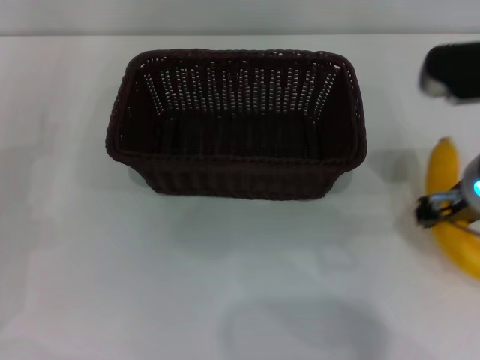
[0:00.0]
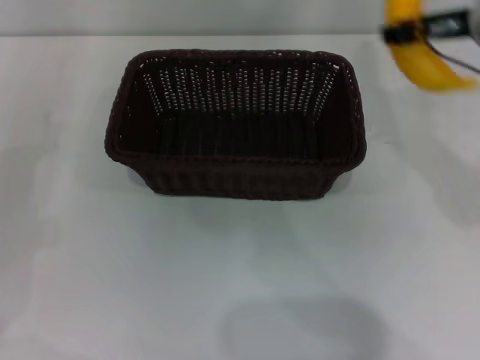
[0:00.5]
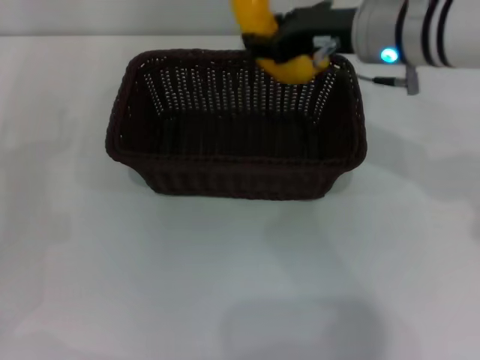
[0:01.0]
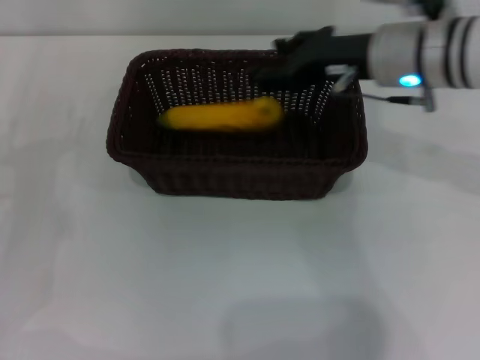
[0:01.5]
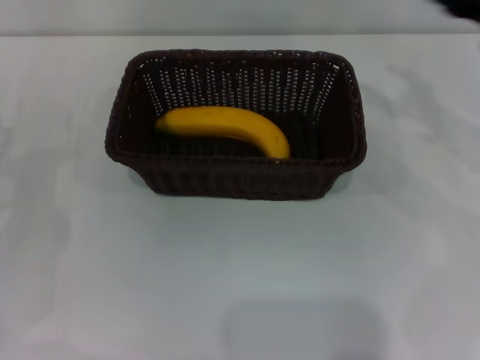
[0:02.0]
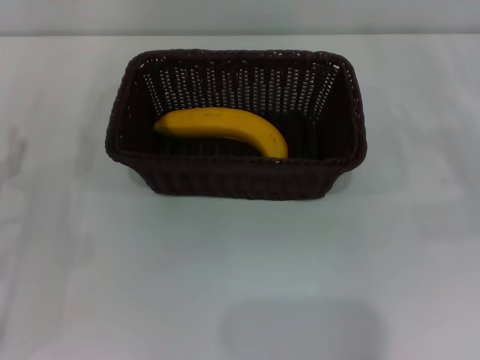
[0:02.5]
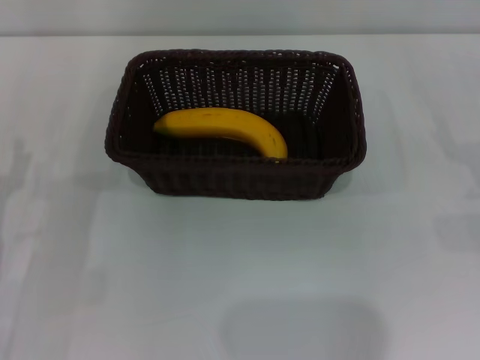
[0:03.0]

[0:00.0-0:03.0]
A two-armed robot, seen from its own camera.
Step, 0:00.5 to 0:01.5: Place the banana into the dark basket with the right gripper.
0:00.0 to 0:01.5: The right gripper goes roughly 10 cm forward.
0:01.5 to 0:03.0: The right gripper is displaced to the right, downward and backward by approximately 30 cm, and opens. The left gripper shifts some 5 cm backward.

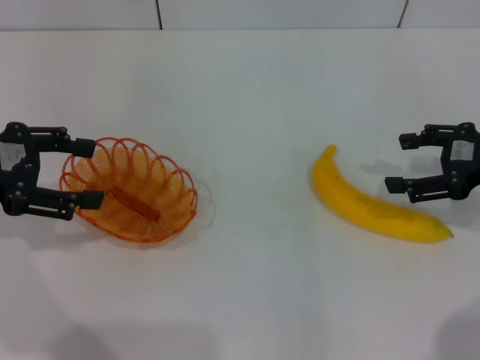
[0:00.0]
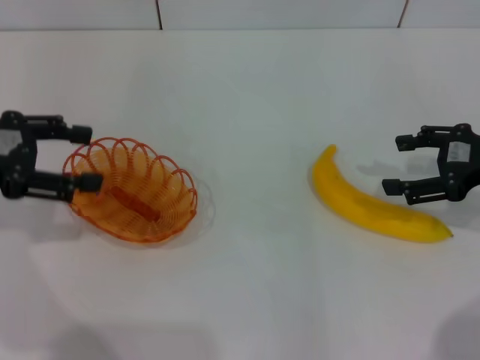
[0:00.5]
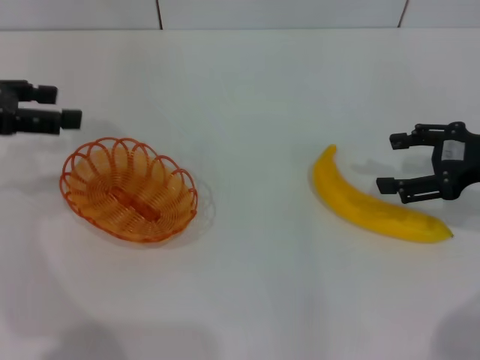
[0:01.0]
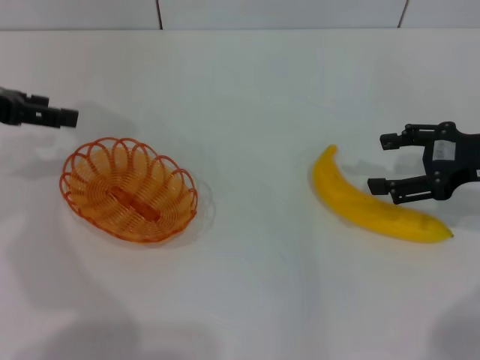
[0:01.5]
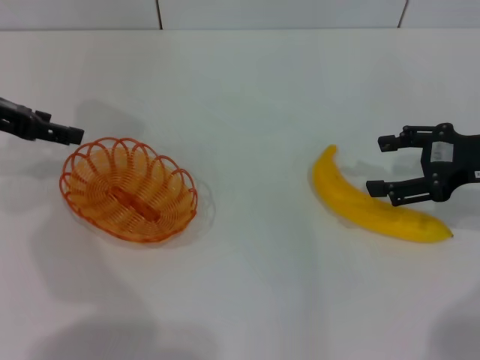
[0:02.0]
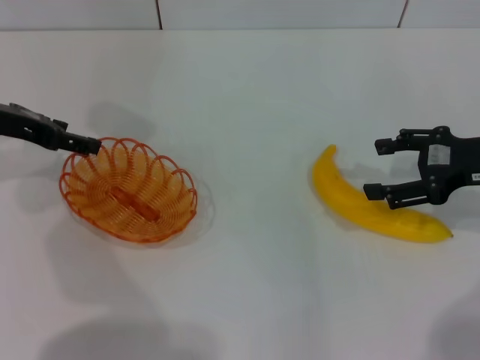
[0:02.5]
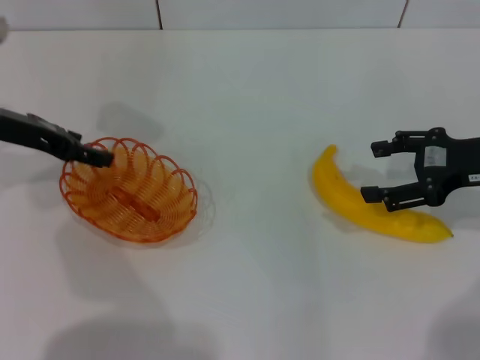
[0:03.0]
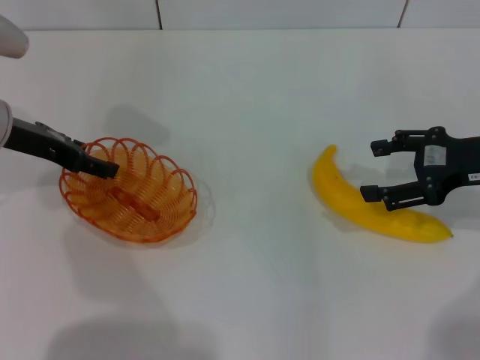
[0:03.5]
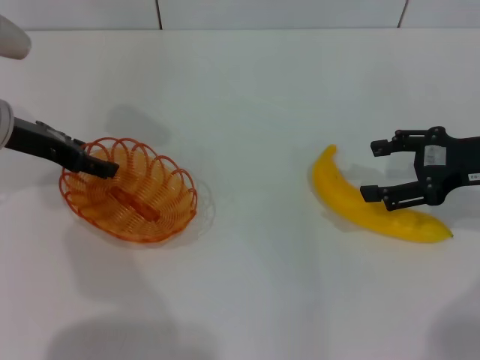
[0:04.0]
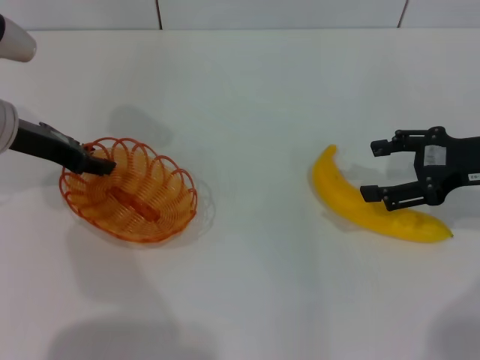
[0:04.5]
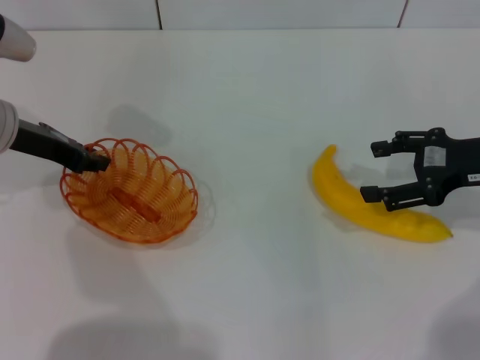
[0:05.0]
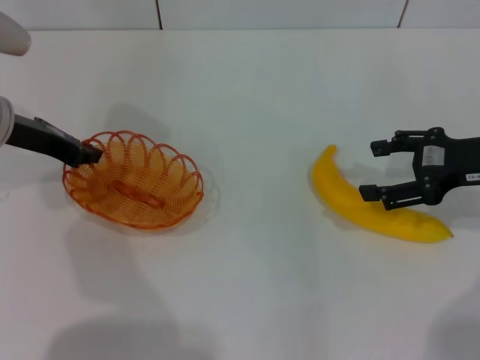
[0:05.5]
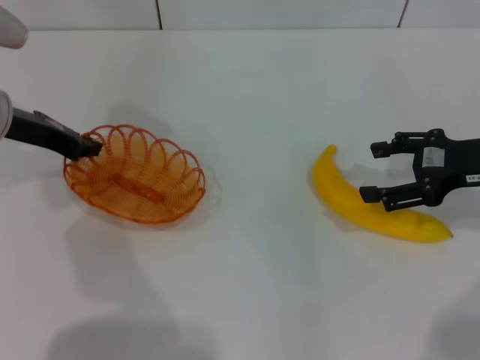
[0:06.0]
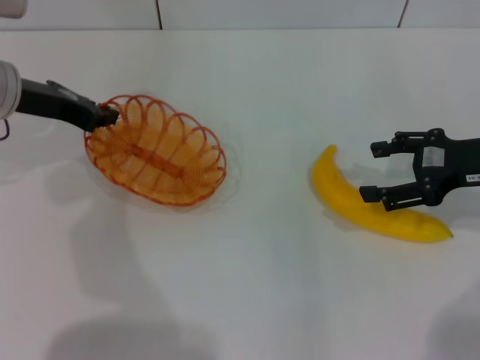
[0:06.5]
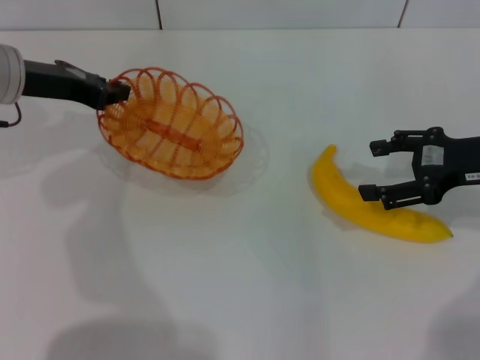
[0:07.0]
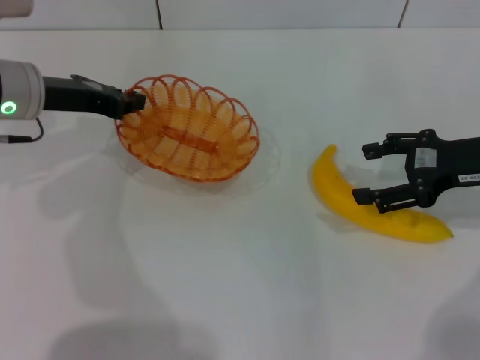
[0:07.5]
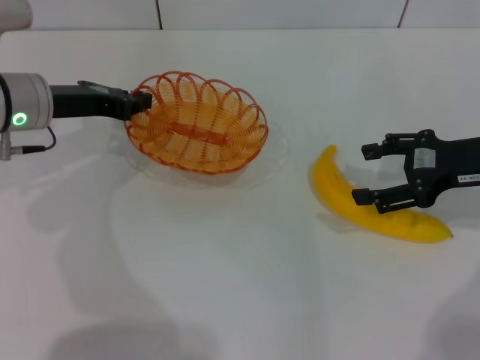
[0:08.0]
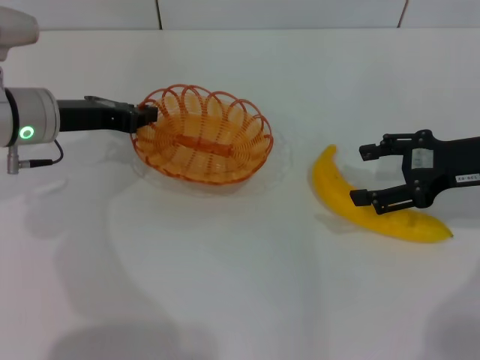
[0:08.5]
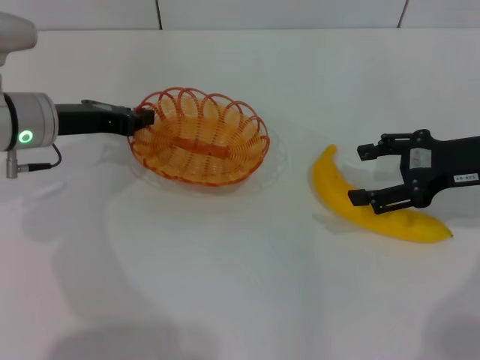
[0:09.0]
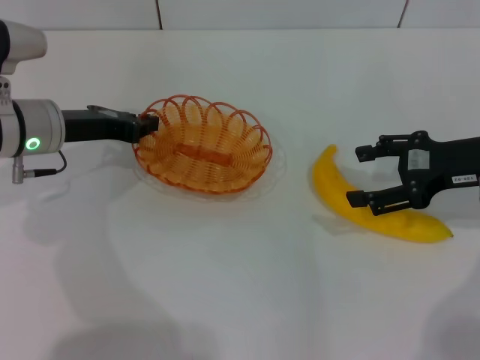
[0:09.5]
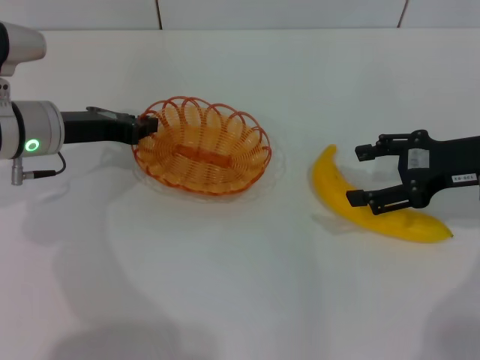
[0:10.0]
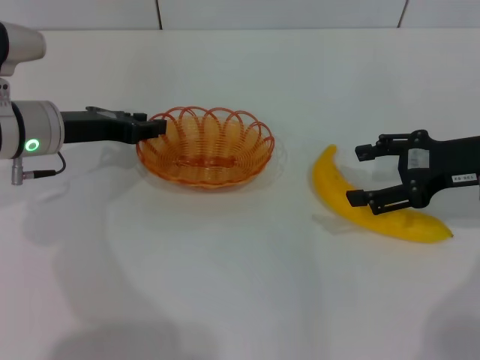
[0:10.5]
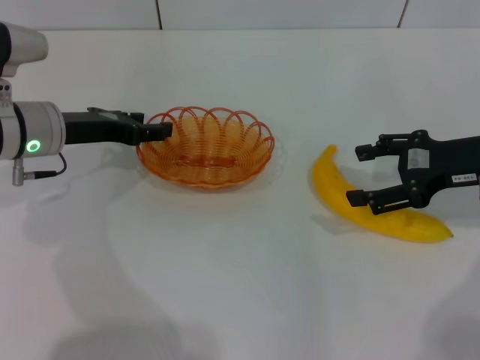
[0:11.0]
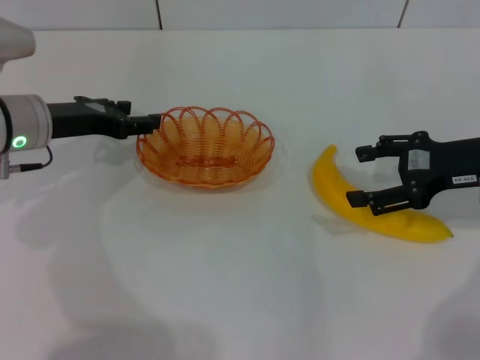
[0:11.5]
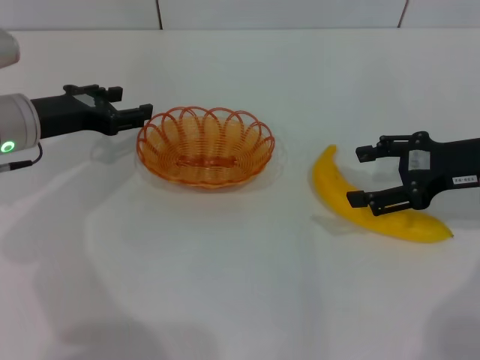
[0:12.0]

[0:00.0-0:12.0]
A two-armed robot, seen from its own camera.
Step, 0:00.0 to 0:06.0: Pick up the basket with the left gripper.
Step, 0:06.5 to 0:10.5: Place the basket in the center of view with the left gripper.
0:00.0 to 0:02.0: The left gripper shifts about 5 cm forward.
0:02.0 to 0:04.0: The left gripper shifts by about 5 cm.
0:04.0 to 0:06.0: The left gripper closes its fingers.
0:08.0 to 0:10.0: There are only small adjustments of the grippers.
0:10.0 to 0:12.0: The left gripper opens.

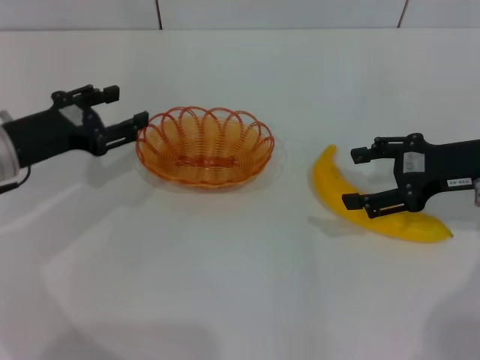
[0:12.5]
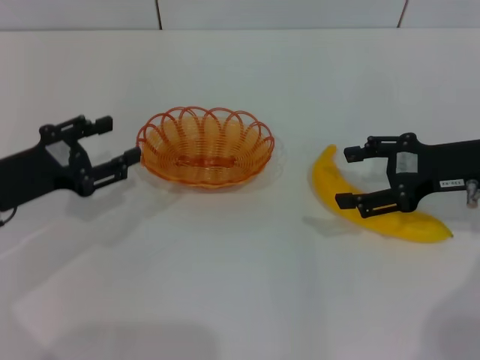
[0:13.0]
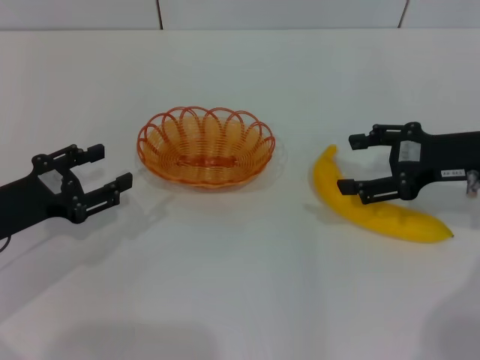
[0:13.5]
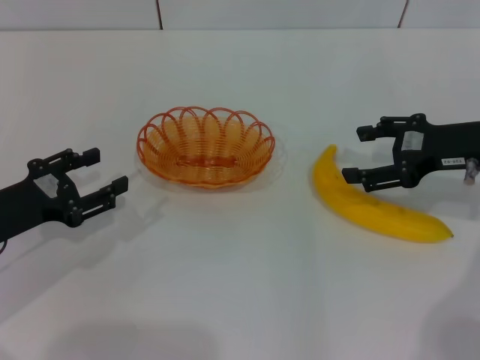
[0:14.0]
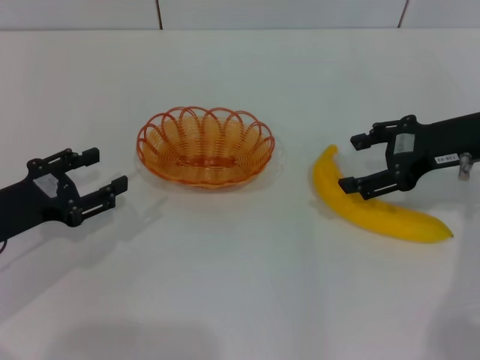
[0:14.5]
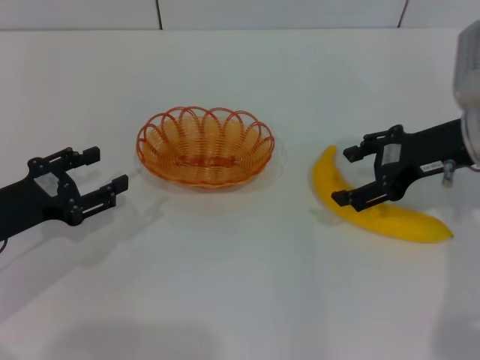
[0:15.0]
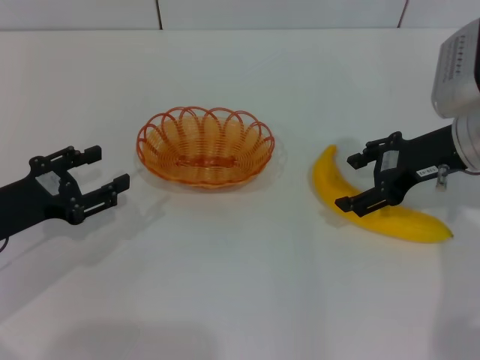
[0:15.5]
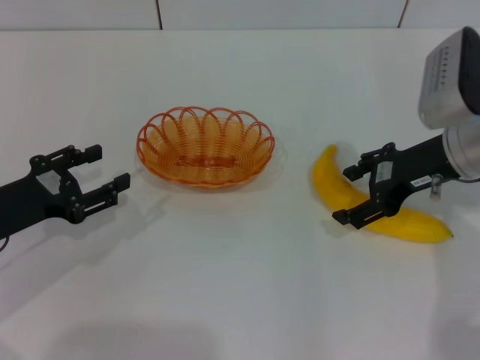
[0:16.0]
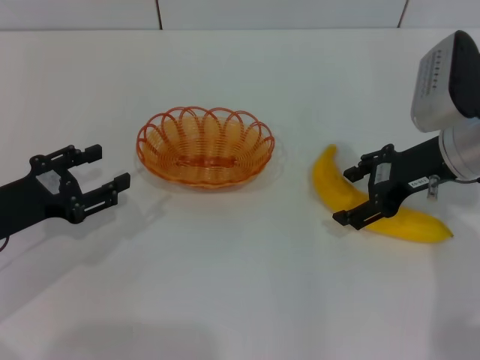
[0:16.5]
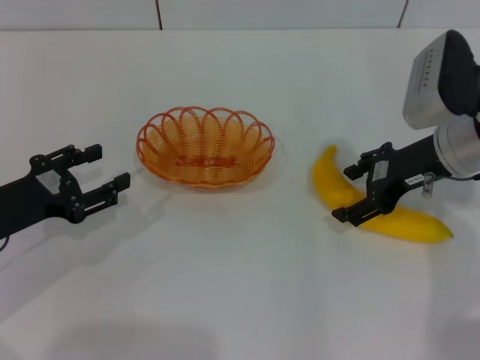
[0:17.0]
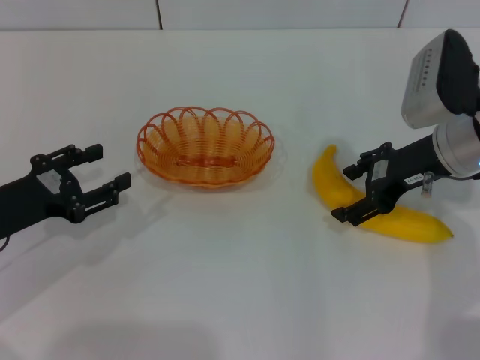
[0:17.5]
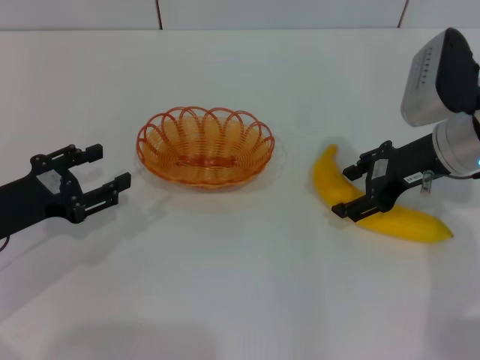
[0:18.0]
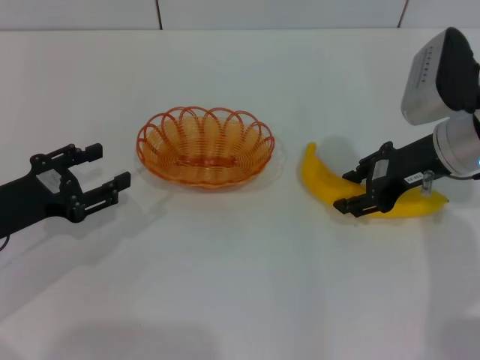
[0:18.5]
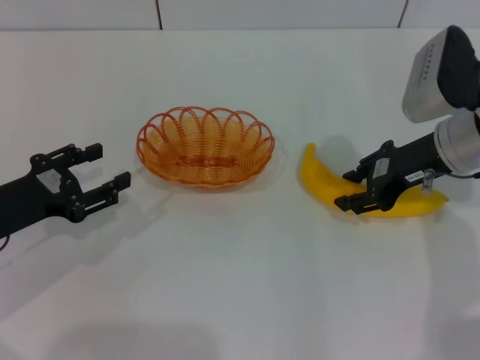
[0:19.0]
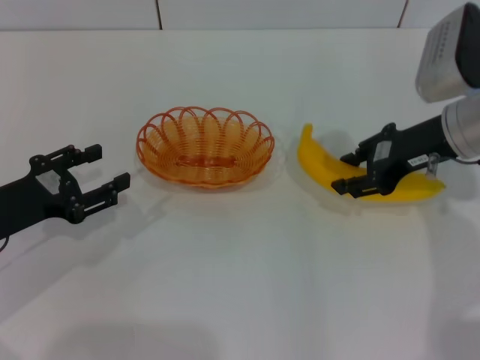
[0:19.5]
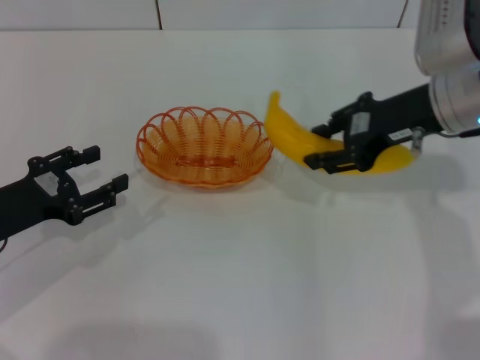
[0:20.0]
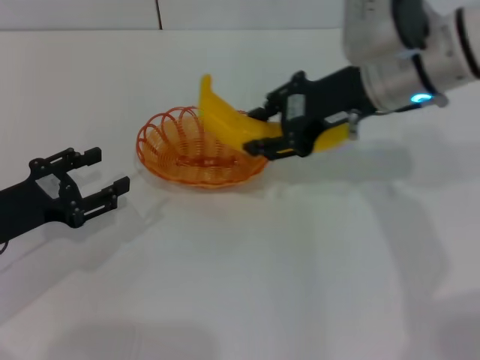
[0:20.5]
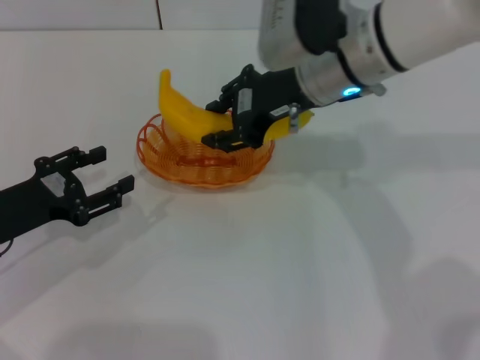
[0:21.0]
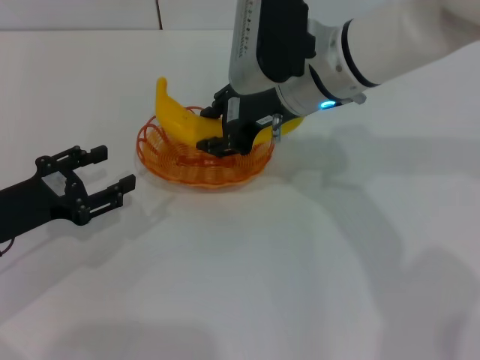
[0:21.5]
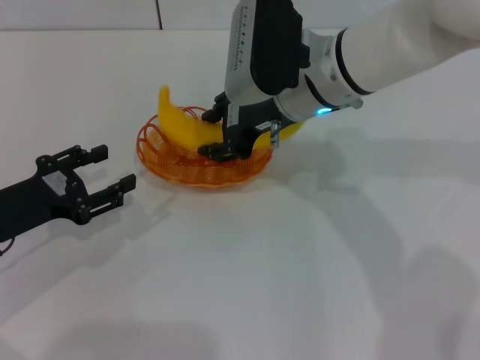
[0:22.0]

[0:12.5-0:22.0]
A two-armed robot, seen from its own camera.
Step, 0:12.5 to 0:19.5: Pick up the banana with the right gripper.
0:12.5 to 0:14.5: The left gripper moves backward, some 5 cm.
0:14.5 to 0:16.5: The grippers make only small movements.
0:16.5 to 0:18.0: Both grippers stay put.
0:18.0 to 0:20.0: The right gripper goes some 5 cm upward, and closes its fingers.
0:20.0 to 0:22.0: The right gripper travels to the left by some 15 cm.

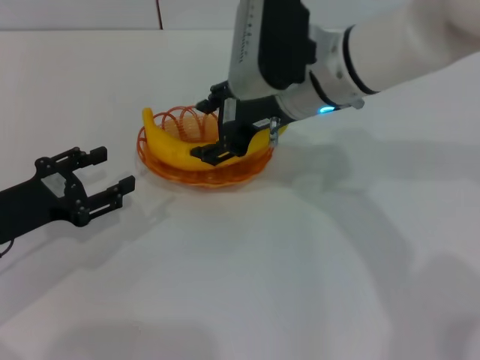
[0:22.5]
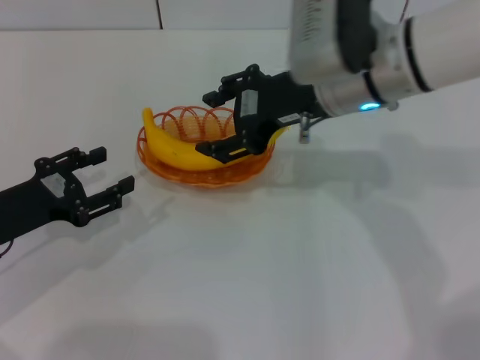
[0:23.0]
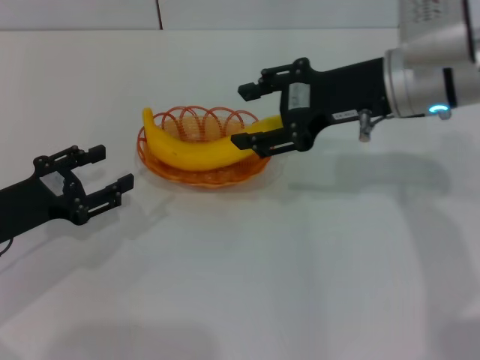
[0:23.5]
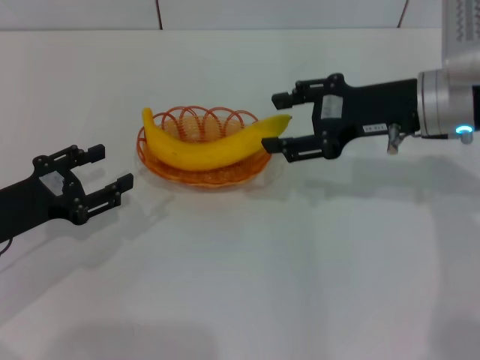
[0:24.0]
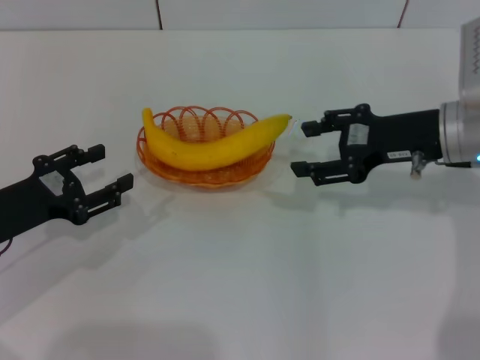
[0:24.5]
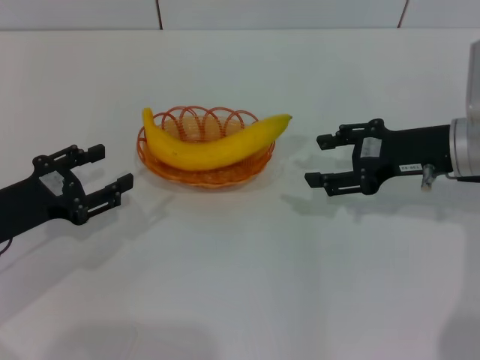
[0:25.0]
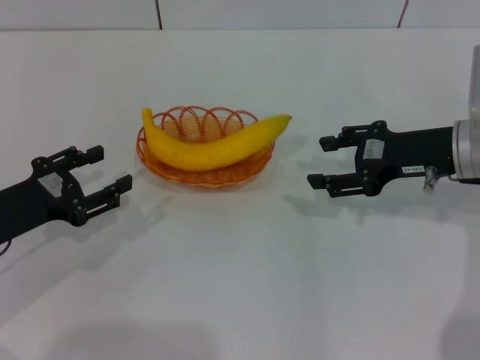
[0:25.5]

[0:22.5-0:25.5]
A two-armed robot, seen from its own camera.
0:22.5 to 0:24.0: The right gripper travels to the right by approximately 15 cm.
0:24.0 to 0:25.5: The right gripper changes place by roughly 5 cm.
